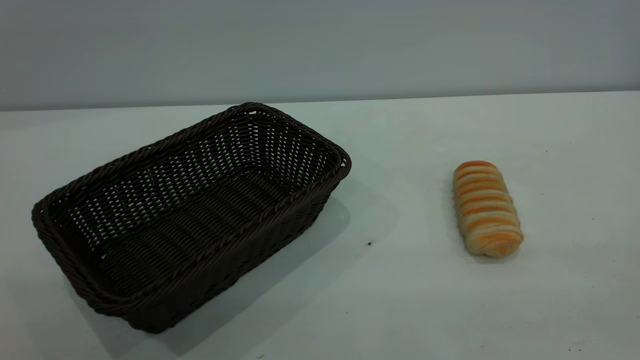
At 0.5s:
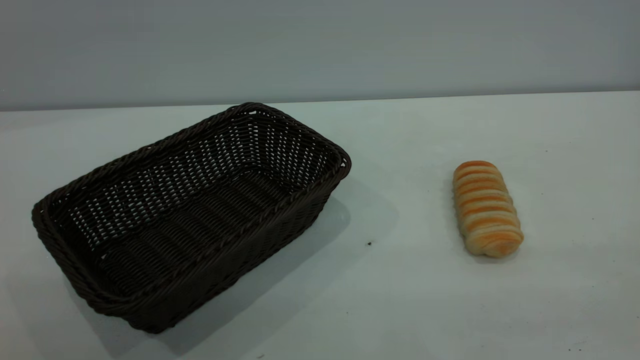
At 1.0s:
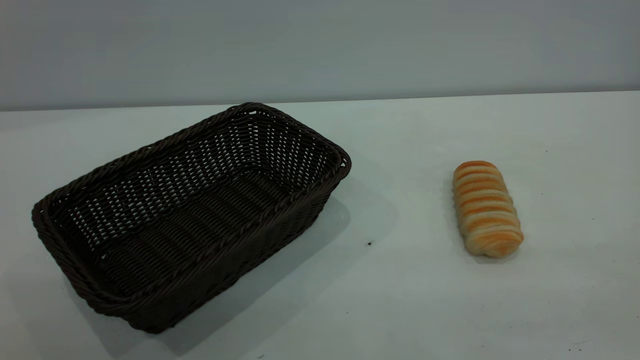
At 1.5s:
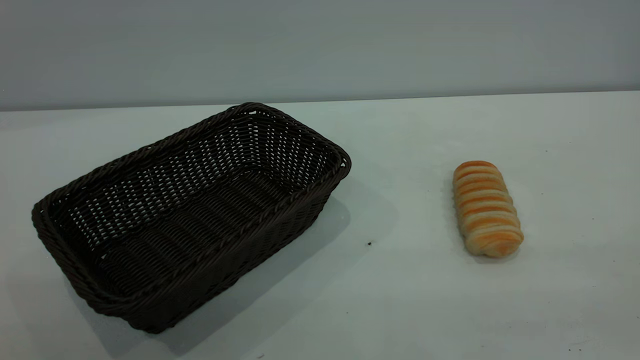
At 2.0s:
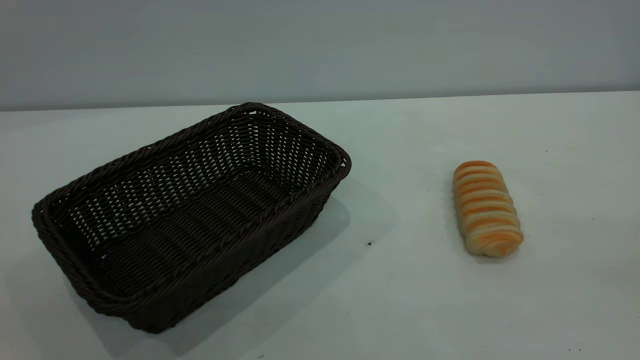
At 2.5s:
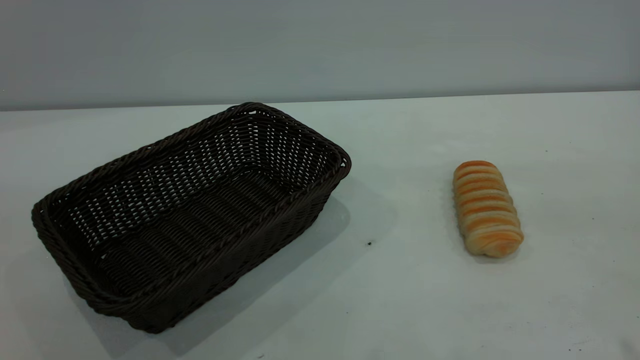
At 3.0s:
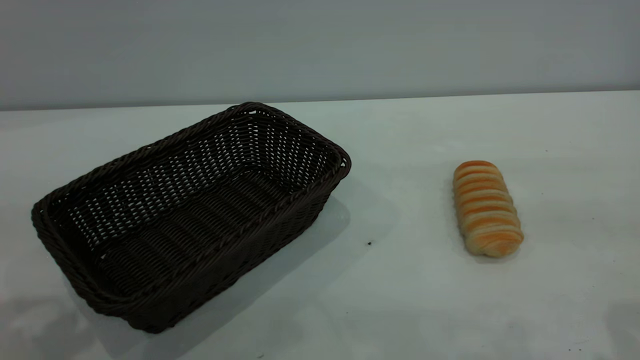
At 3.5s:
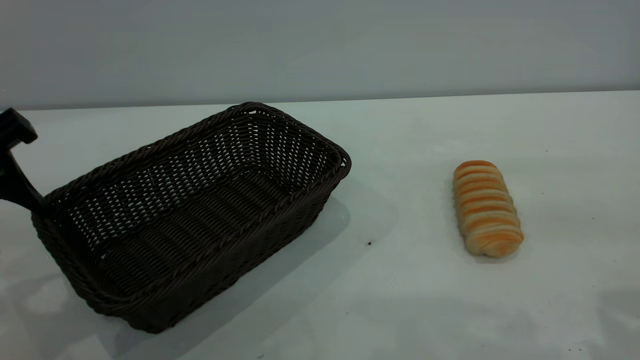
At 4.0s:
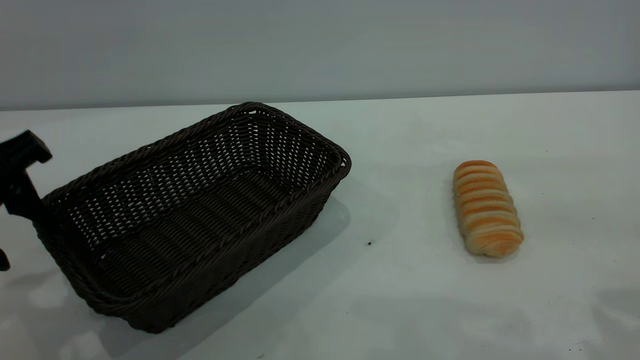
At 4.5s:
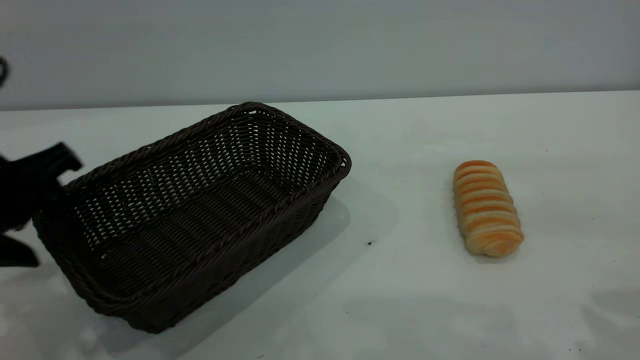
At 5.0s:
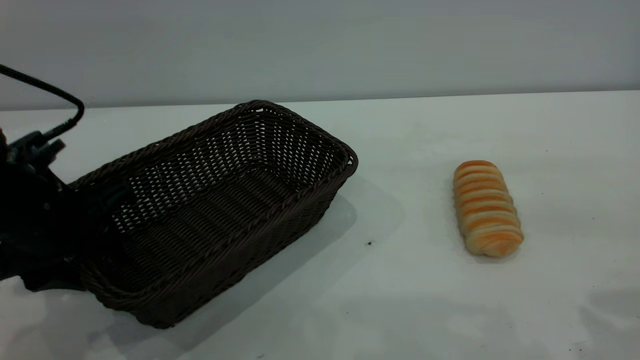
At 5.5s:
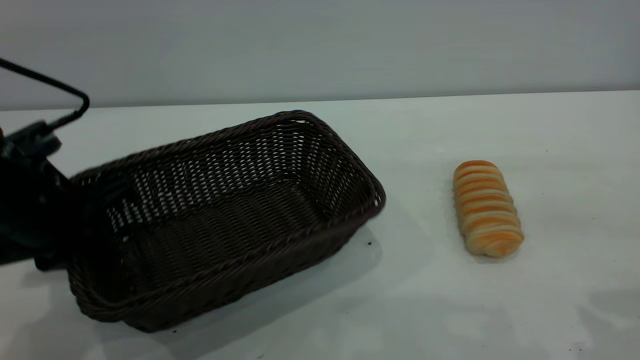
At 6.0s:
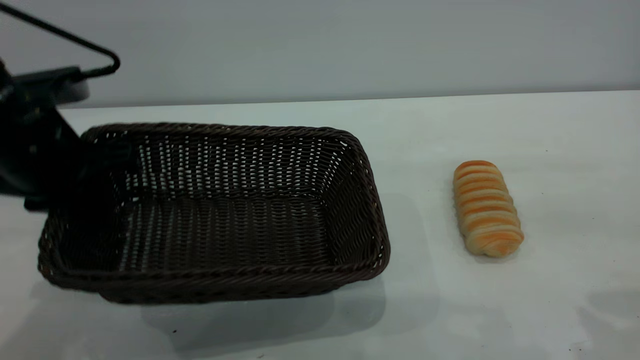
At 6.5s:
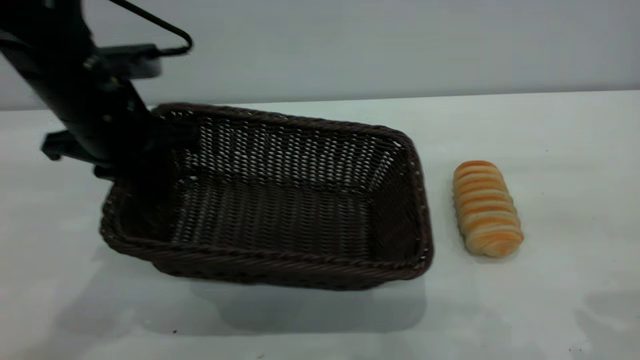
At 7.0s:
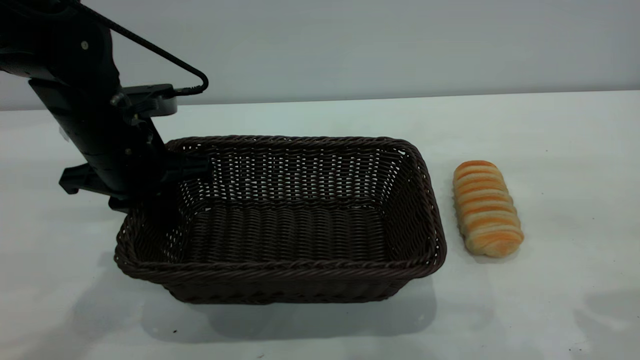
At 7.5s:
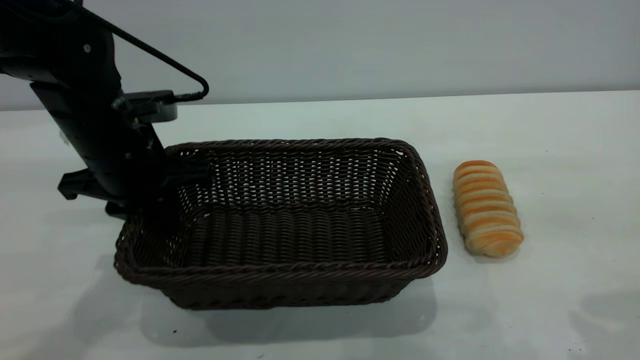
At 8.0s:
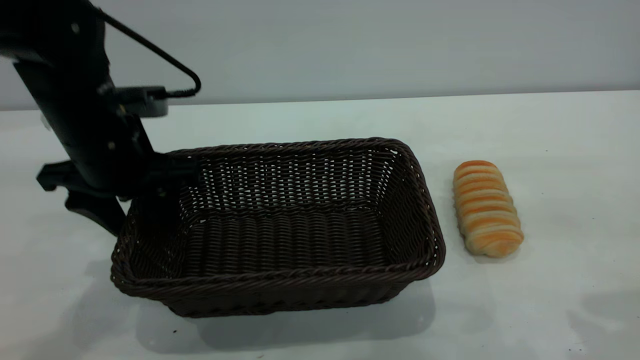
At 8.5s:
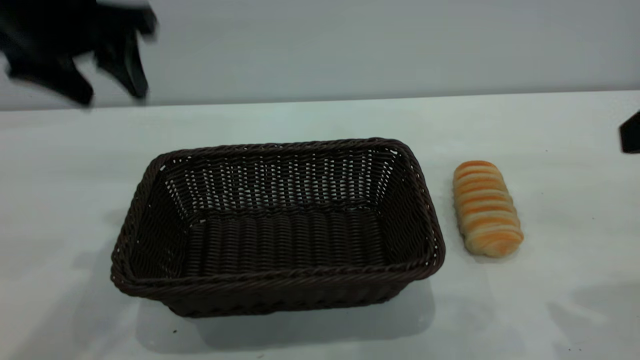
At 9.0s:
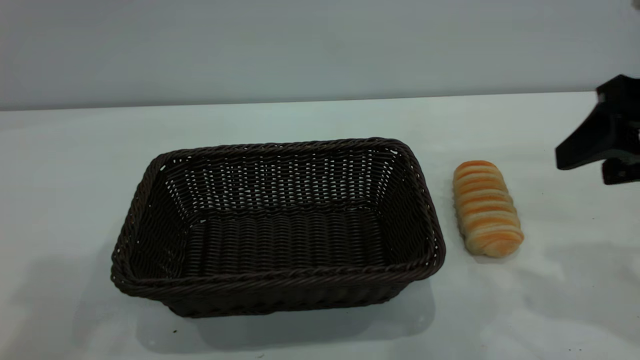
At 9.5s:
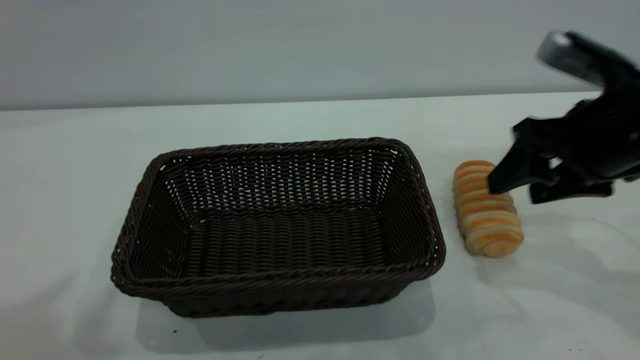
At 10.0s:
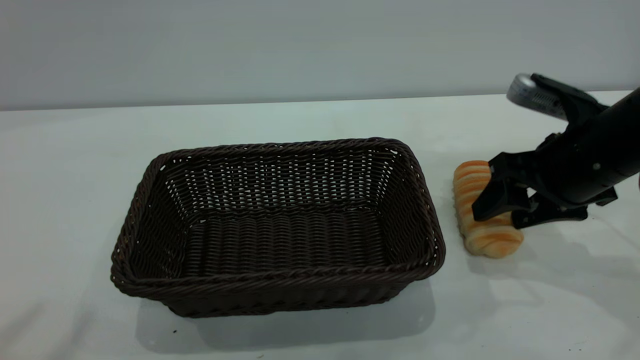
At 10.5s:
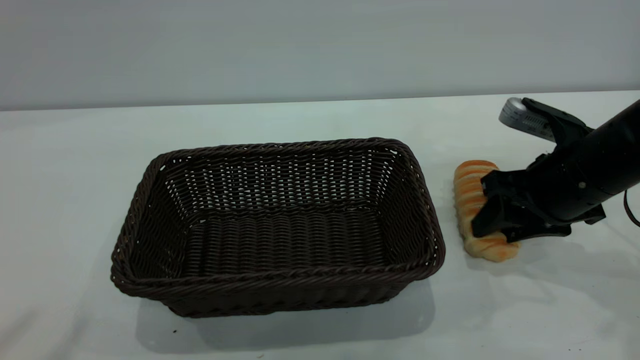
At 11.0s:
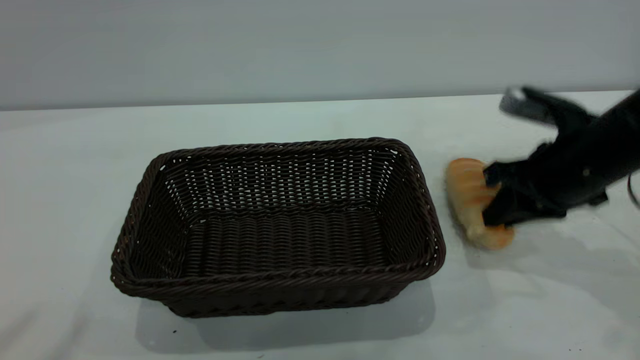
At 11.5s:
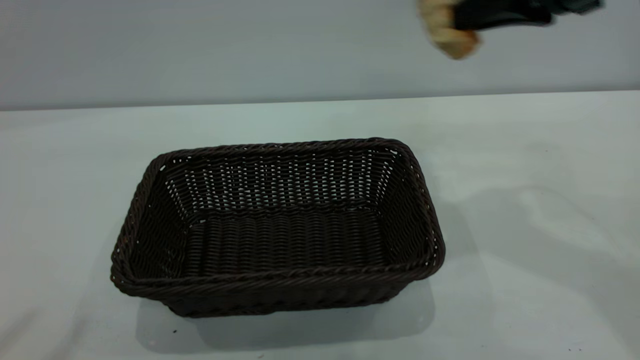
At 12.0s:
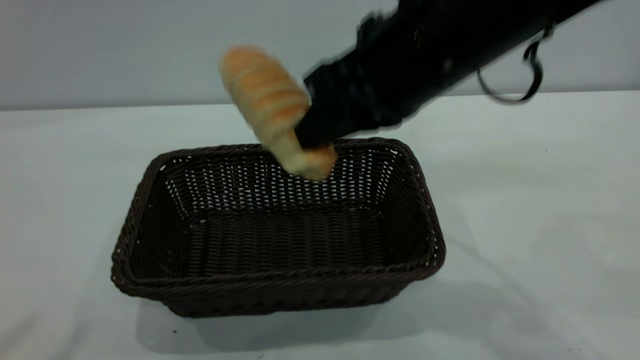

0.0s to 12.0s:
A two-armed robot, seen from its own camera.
Task of the whole recording: One hand grasps the black basket and places it in the middle of the table, while the other hand picks up the long bread and puts it into the black basket.
Step, 0.0s to 8.0s: Move the basket to the center of view.
2.0s to 4.0s: The left gripper goes approximately 30 cm forward and downward.
4.0s to 6.0s: The left gripper travels forward by approximately 5 cm, and closes.
6.0s to 8.0s: The left gripper shifts by roughly 5 cm, and opens.
8.0s to 10.0s: The right gripper goes approximately 20 cm downward and forward; the left gripper heads upward and backward, covering roughly 40 cm.
10.0s to 12.0s: The right gripper shifts approximately 20 cm to the left and upward, and closes up.

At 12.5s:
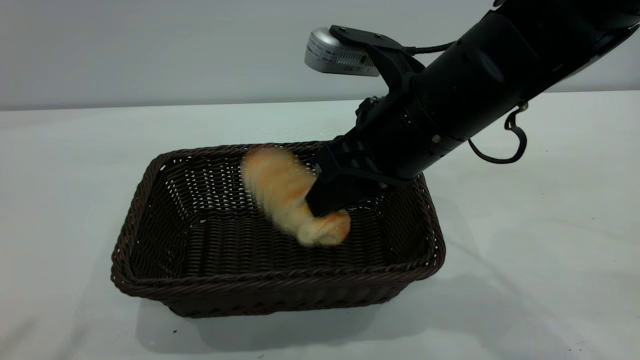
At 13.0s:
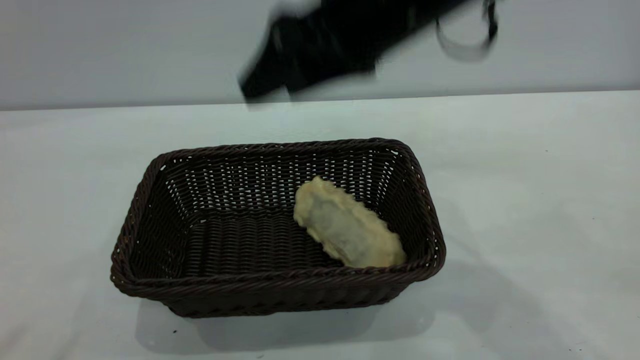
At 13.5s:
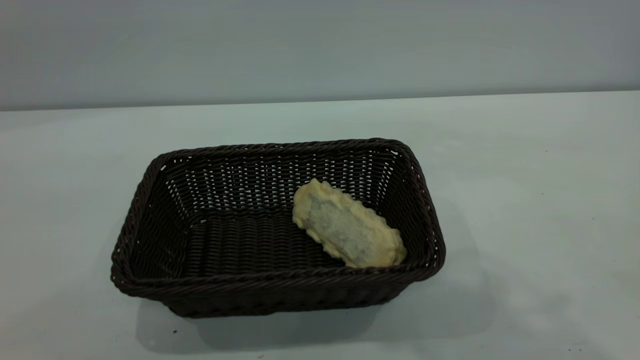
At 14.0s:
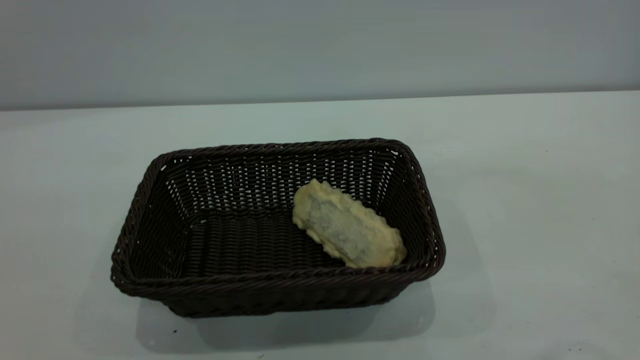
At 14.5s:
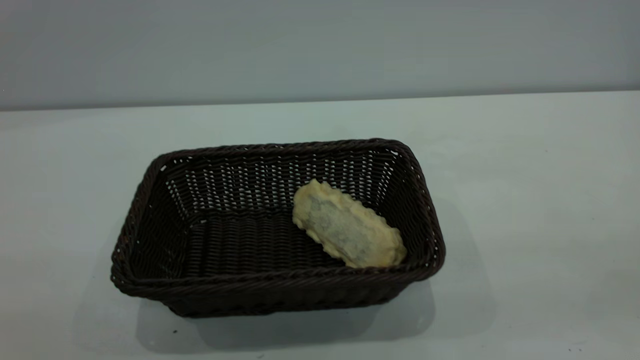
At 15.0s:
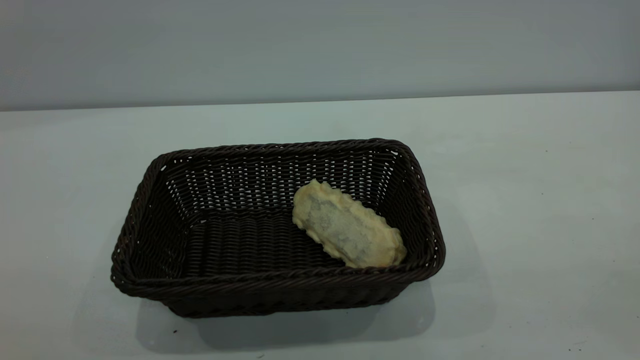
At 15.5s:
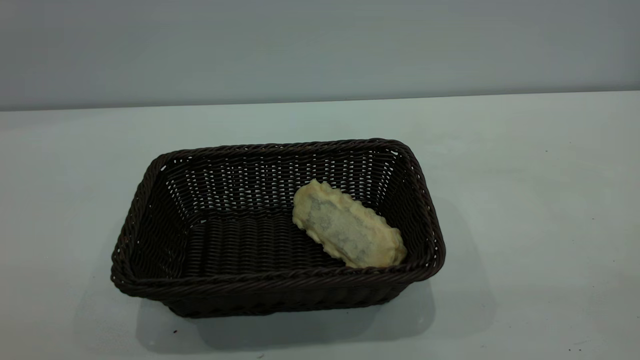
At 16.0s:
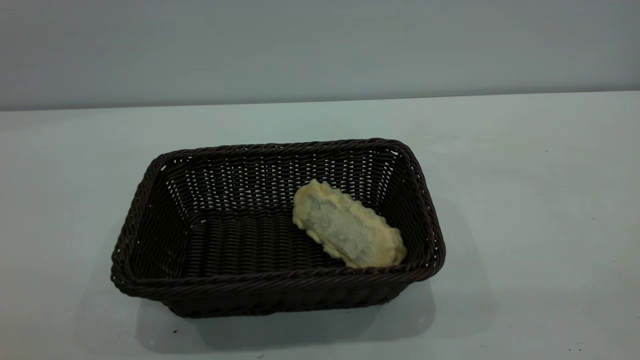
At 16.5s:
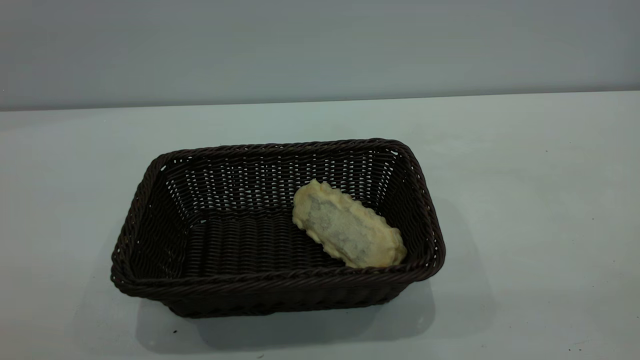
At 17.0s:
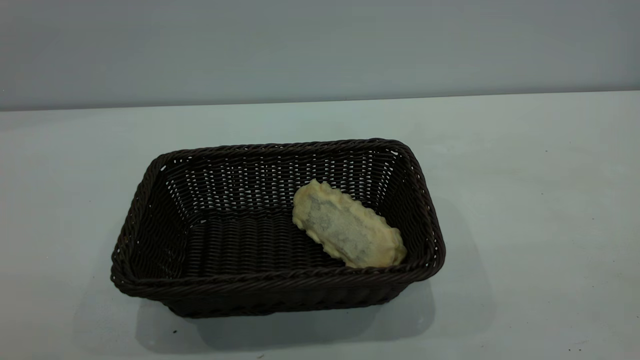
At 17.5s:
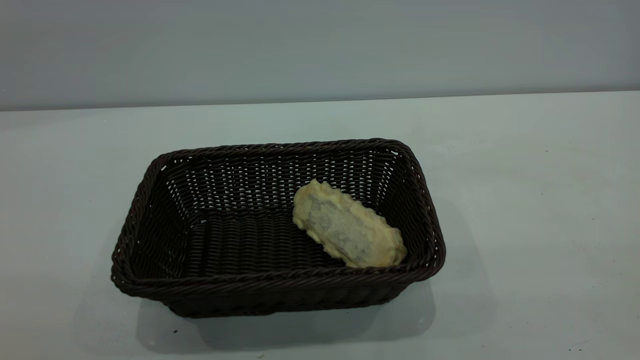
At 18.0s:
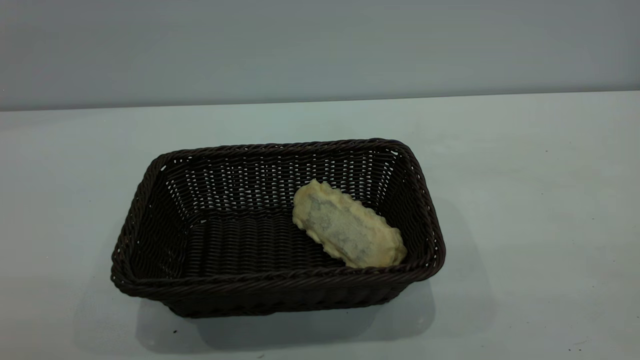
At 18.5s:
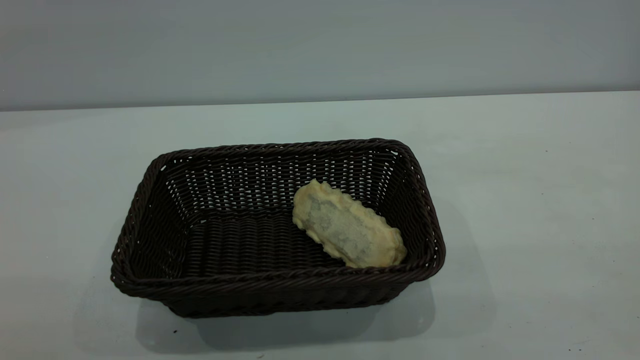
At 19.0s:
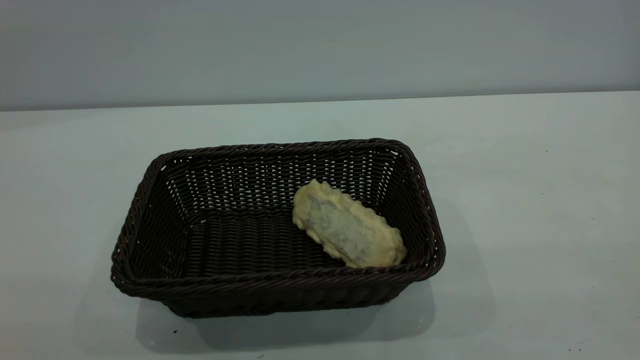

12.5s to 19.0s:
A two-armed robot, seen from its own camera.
Task of the whole recording: One hand grasps the black basket and places it in the middle of the table, while the other hand picks up the long bread and puts it into the black basket.
12.5s to 14.5s: The right gripper goes roughly 35 cm backward, to the right and upward; the left gripper is displaced downward and backward by some 20 cm.

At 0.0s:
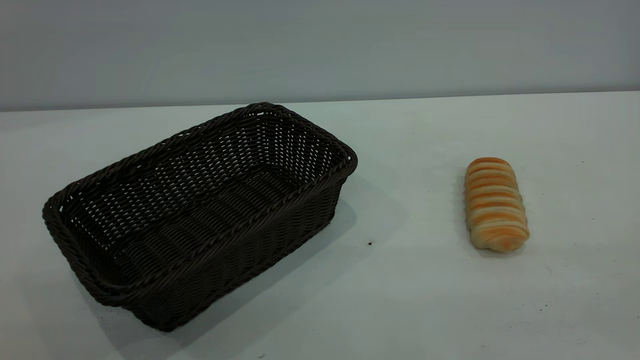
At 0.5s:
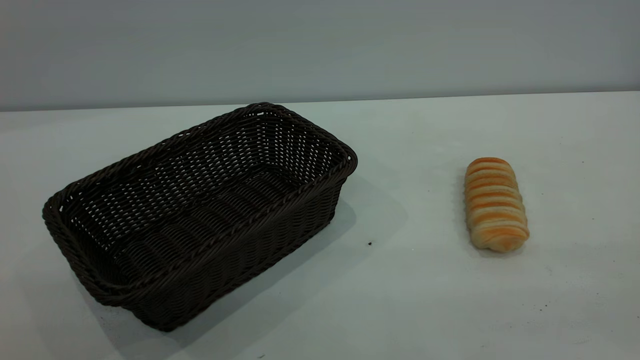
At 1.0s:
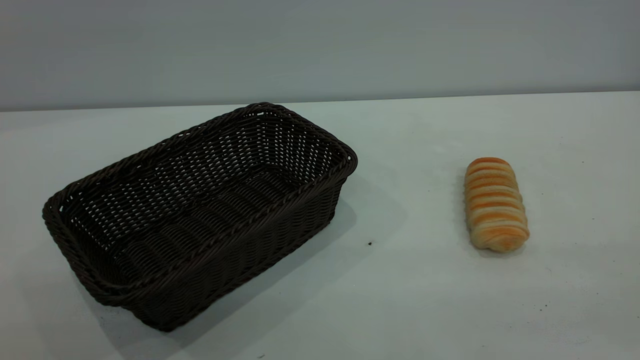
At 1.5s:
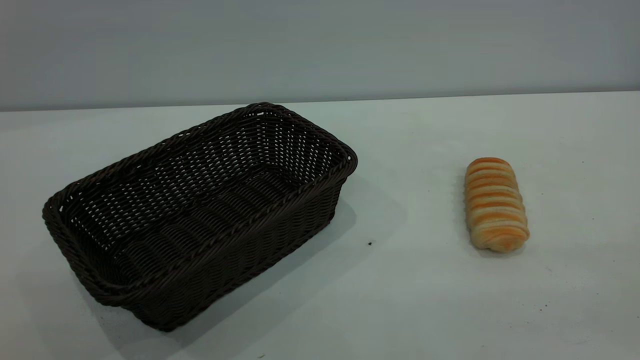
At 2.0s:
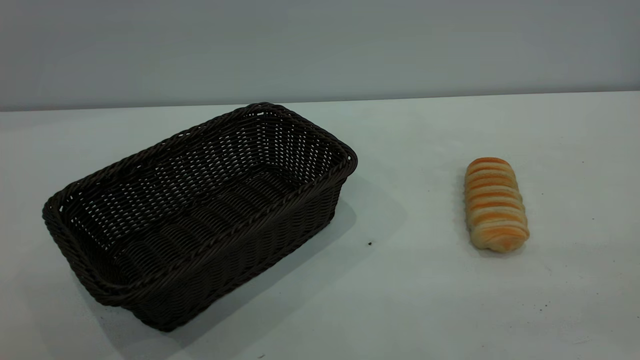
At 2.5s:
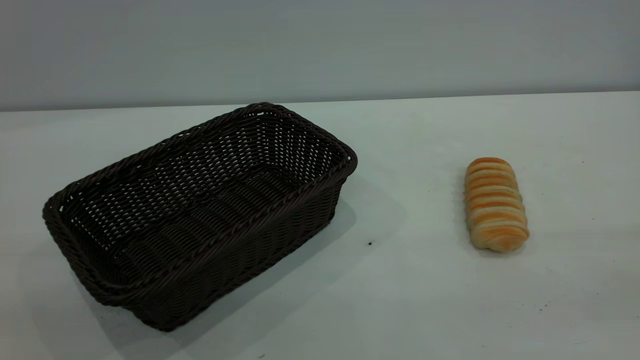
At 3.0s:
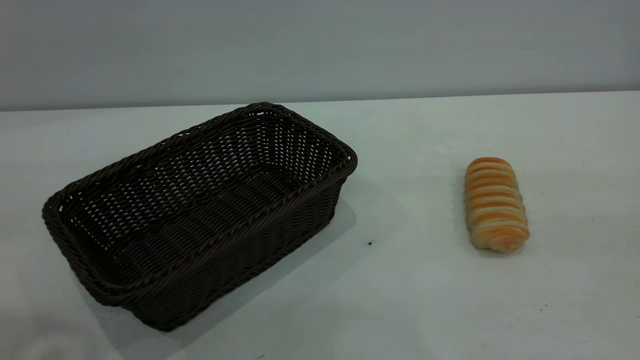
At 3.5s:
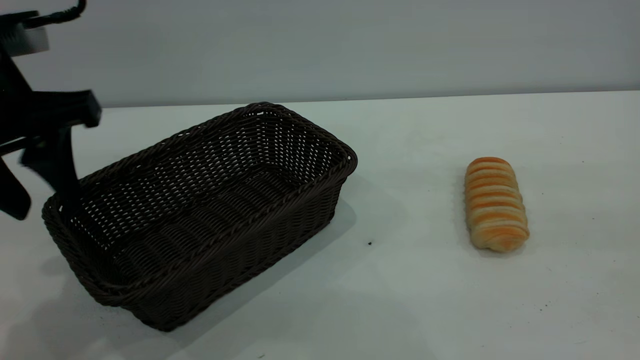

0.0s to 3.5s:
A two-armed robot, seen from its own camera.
Task of the whole recording: One hand grasps the black basket and places it in the middle of the table, while the other hand picks up the long bread and puts it into the black basket.
0.0s to 2.0s: Neither gripper changes place.
2.0s to 3.5s: The left gripper is displaced forward by about 30 cm.
